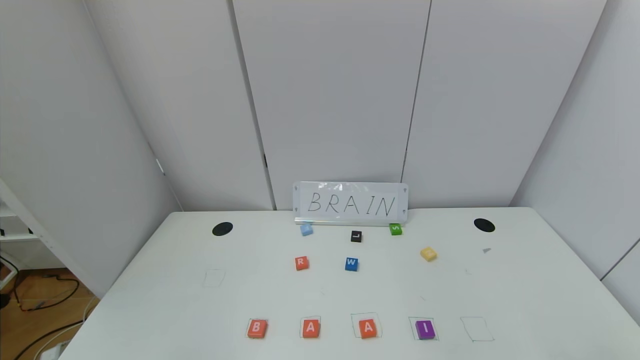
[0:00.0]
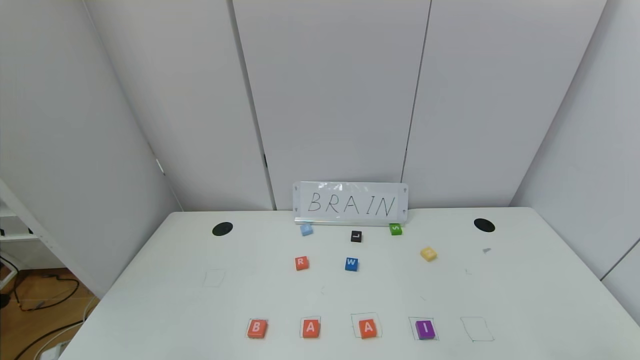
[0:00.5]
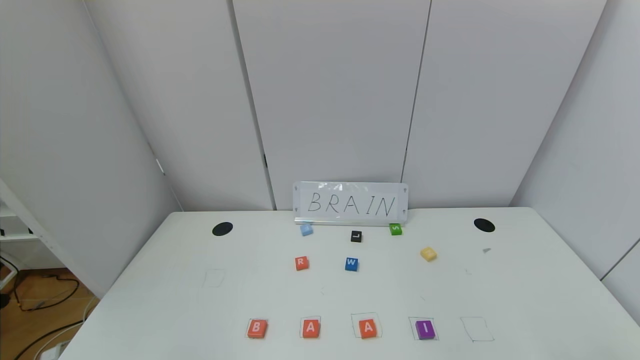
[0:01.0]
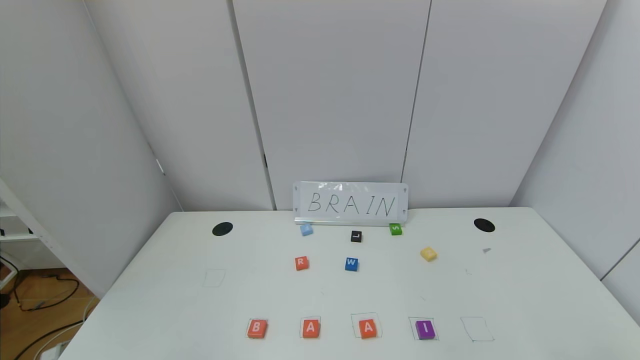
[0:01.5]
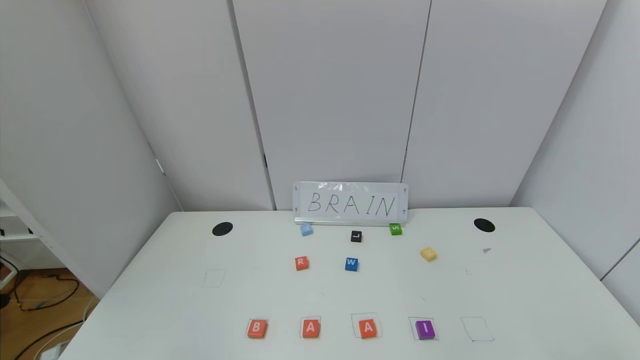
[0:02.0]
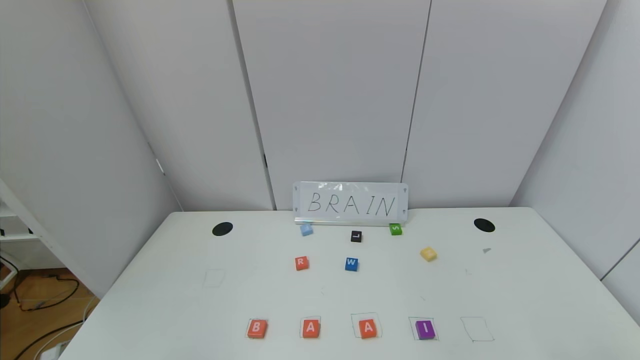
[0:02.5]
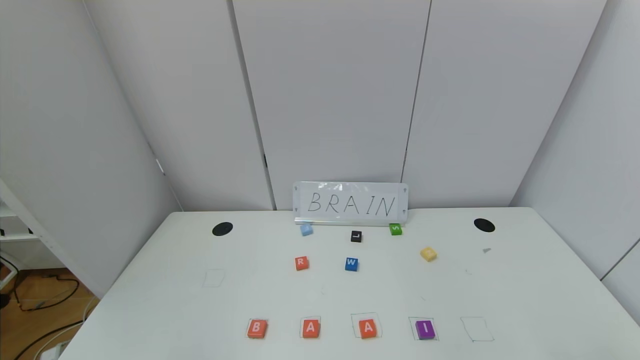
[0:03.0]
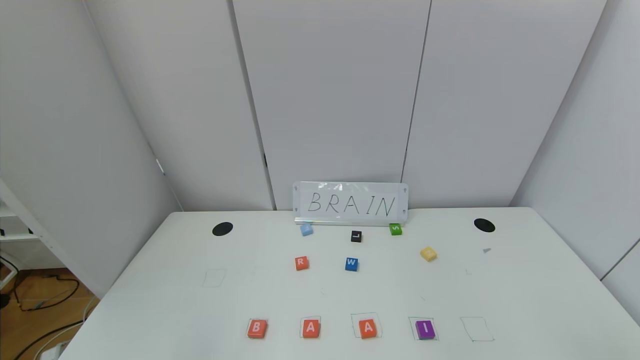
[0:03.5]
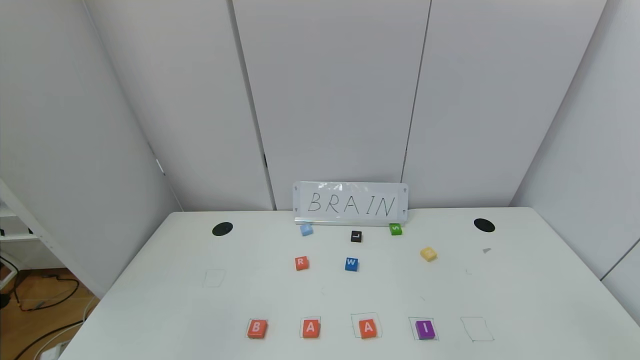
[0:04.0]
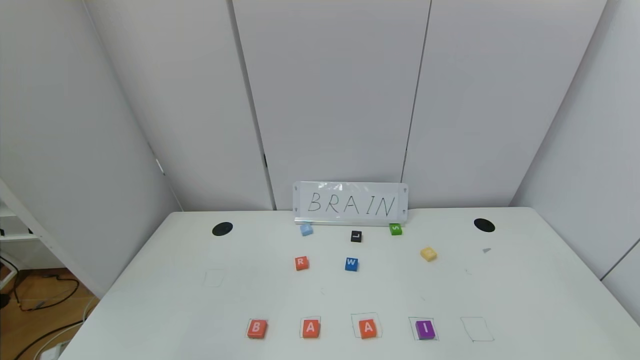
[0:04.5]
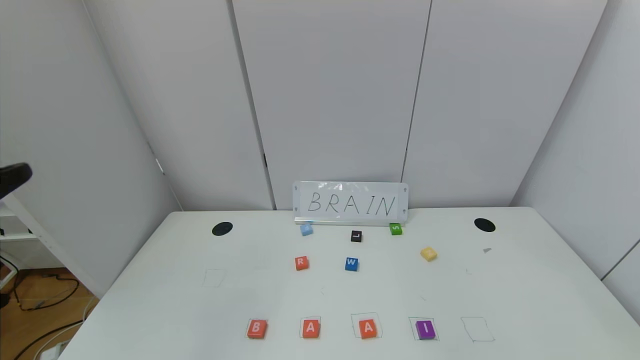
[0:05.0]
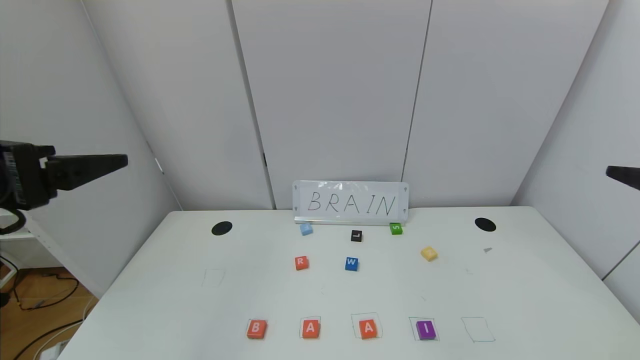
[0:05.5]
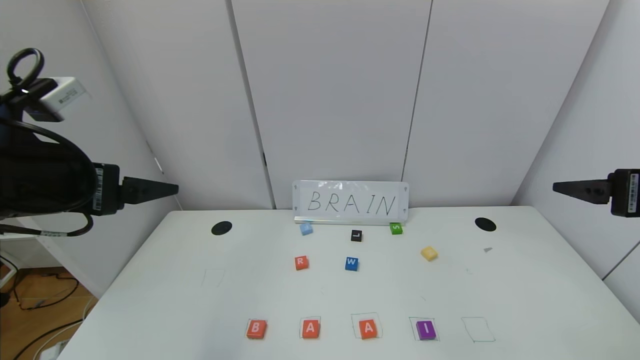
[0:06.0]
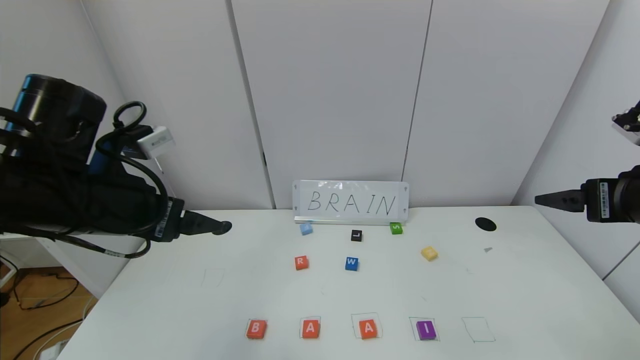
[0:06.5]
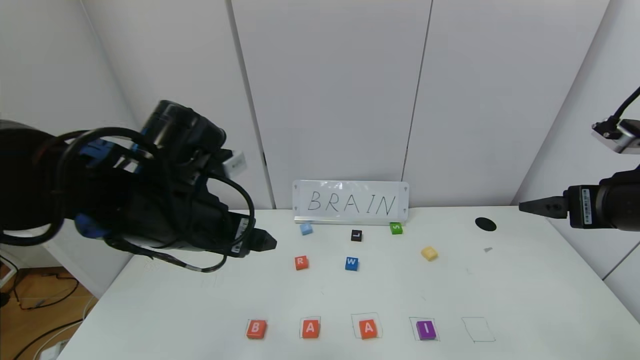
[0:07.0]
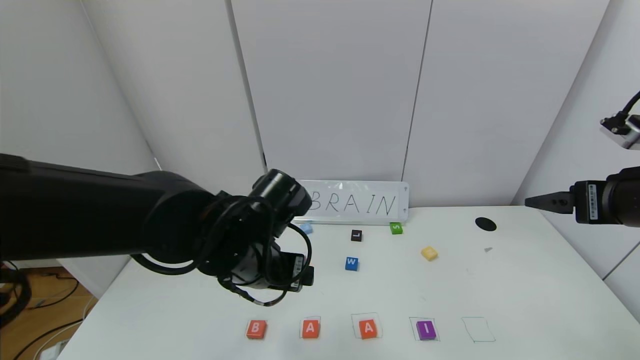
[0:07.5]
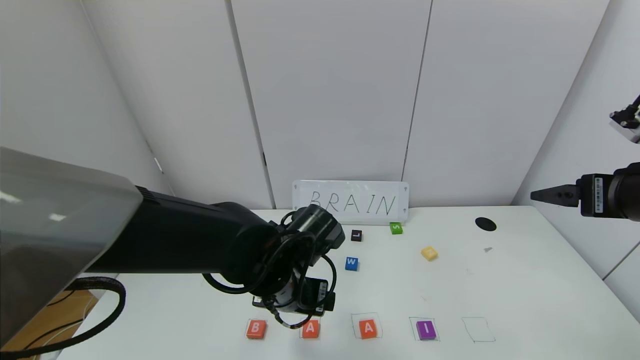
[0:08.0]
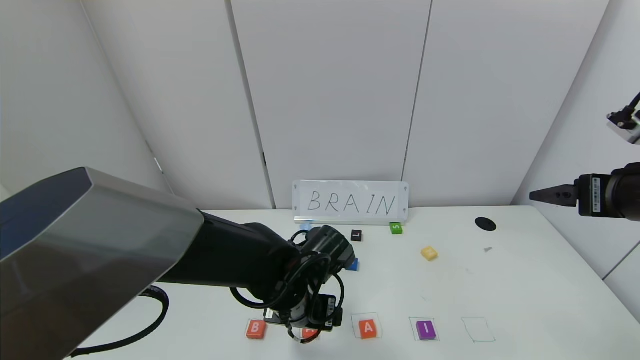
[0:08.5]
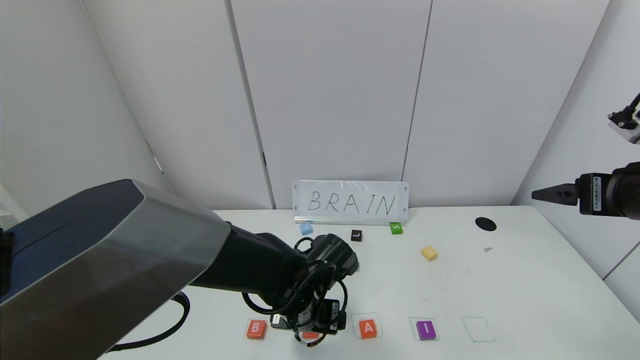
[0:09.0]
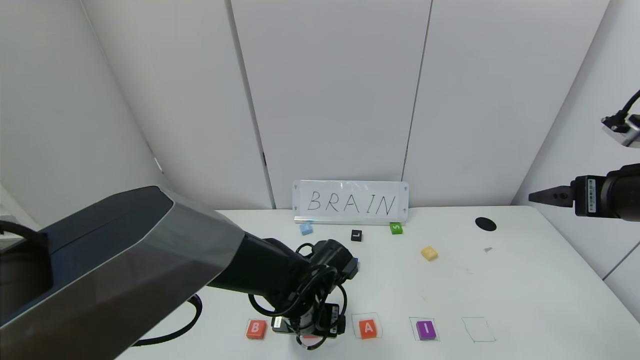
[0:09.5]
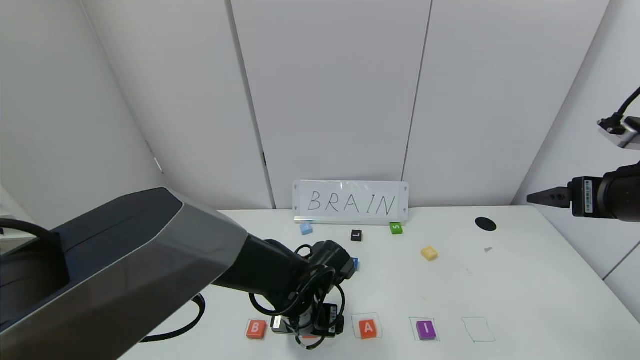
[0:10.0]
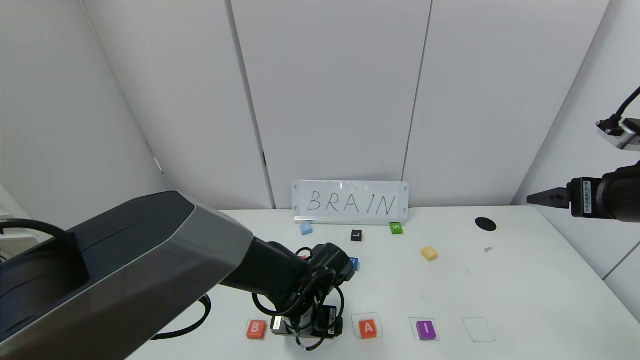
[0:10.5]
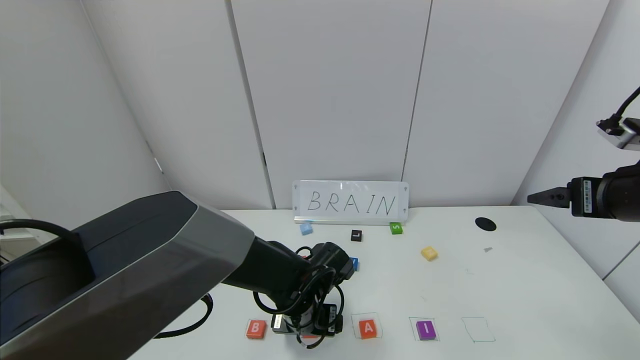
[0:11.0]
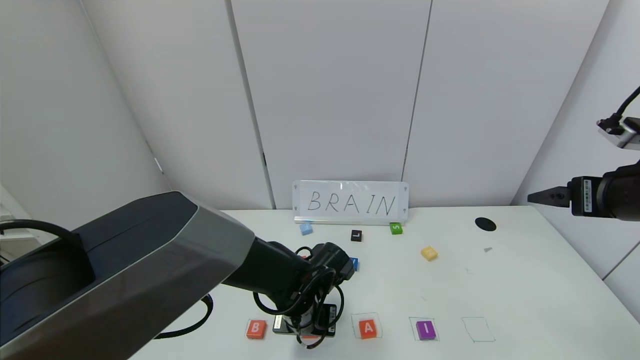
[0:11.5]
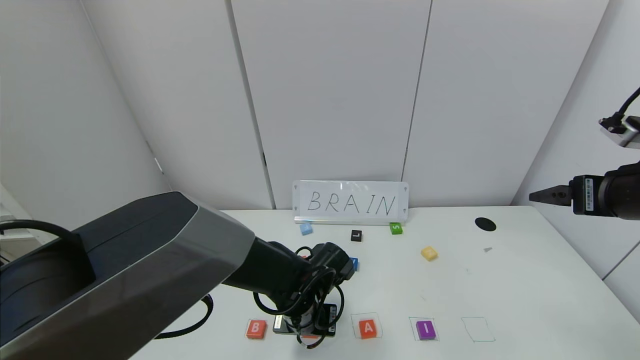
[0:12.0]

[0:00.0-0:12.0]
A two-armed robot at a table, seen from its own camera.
Task of the whole recording: use the gripper to find blocks with the letters b, a, a, and i on the table and arrange them into BAAI, then find r and N and turn the arranged baai into brian.
0:00.0 to 0:02.0: Both grippers stay about where they are.
0:04.0 to 0:06.0: The left gripper goes about 25 cm forward and upward. Meanwhile the right gripper shifts about 25 cm forward.
0:06.0 to 0:08.0: The left gripper travels to the right and downward by roughly 25 cm.
0:08.0 to 0:10.0: The left gripper moves downward, approximately 10 cm.
0:10.0 to 0:12.0: The left gripper closes its fingers.

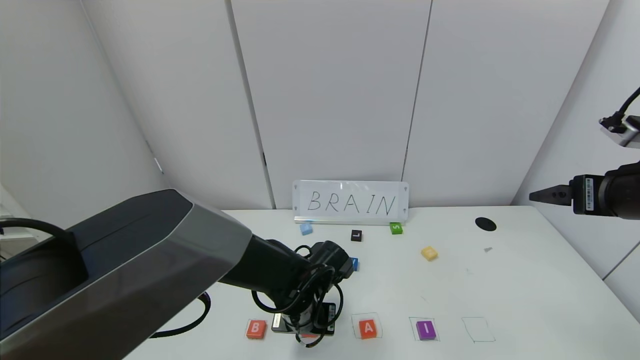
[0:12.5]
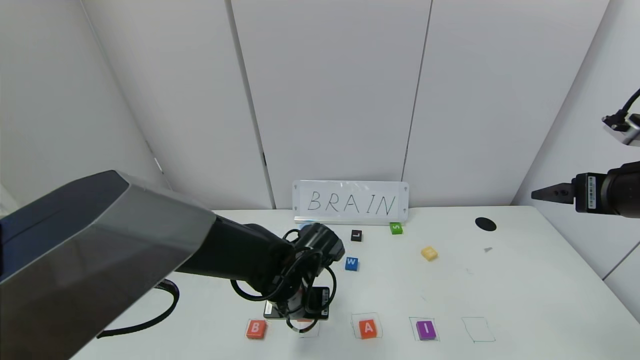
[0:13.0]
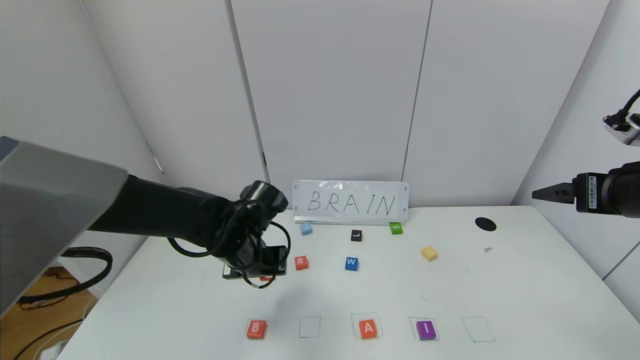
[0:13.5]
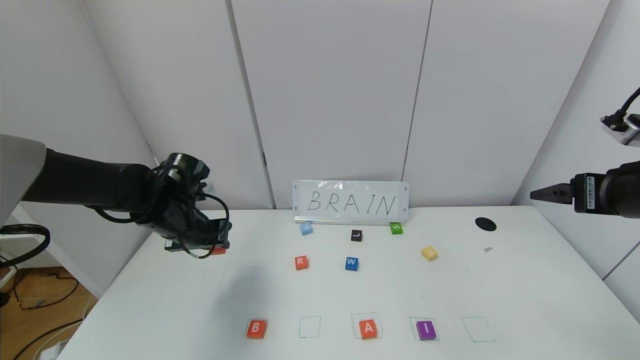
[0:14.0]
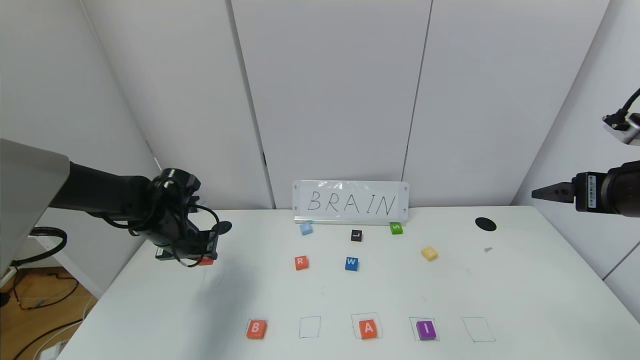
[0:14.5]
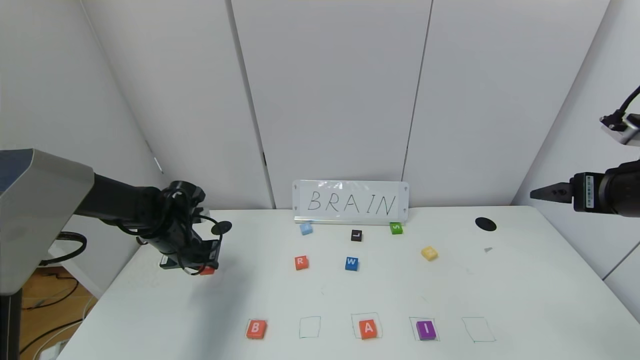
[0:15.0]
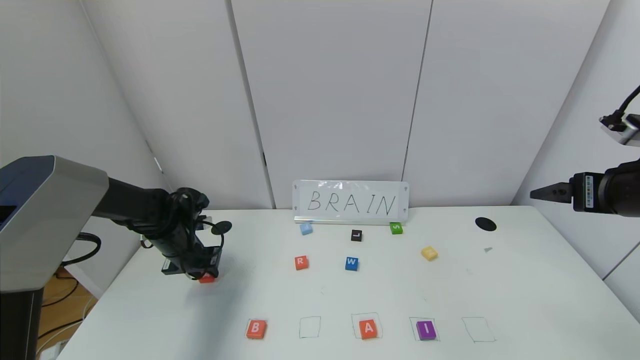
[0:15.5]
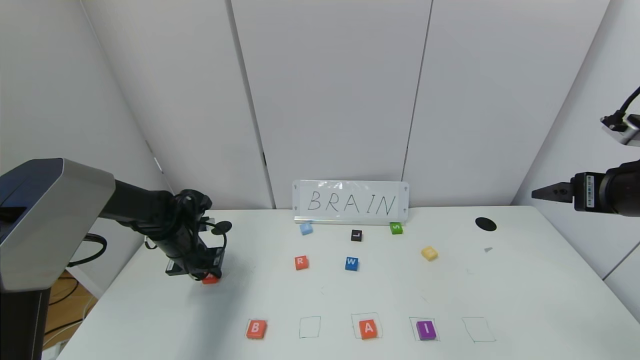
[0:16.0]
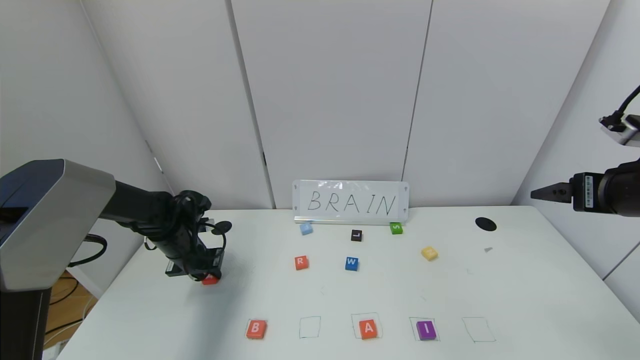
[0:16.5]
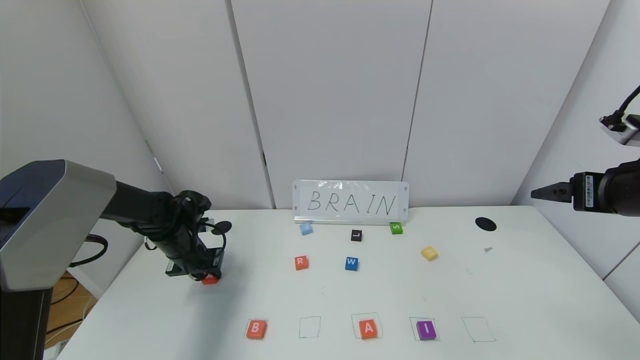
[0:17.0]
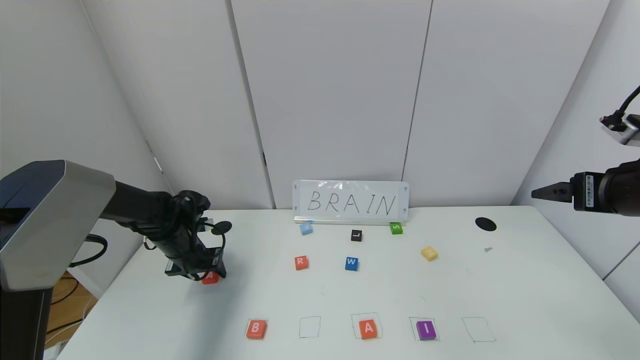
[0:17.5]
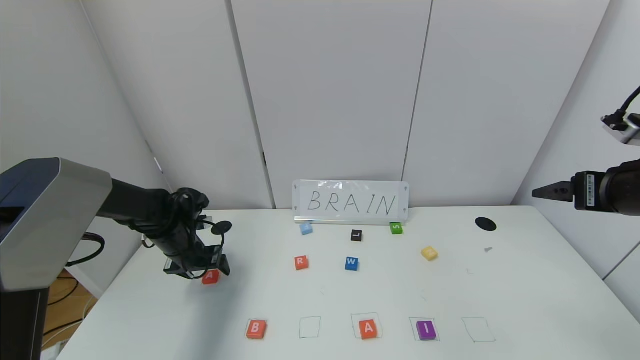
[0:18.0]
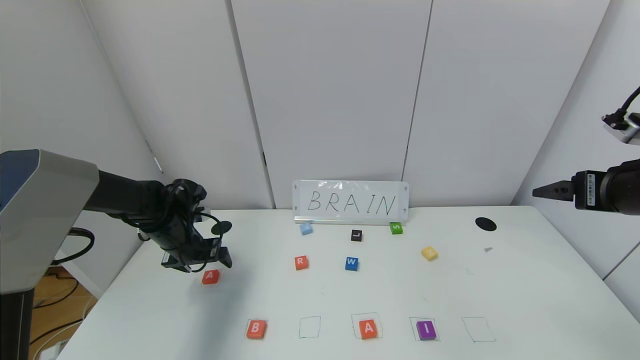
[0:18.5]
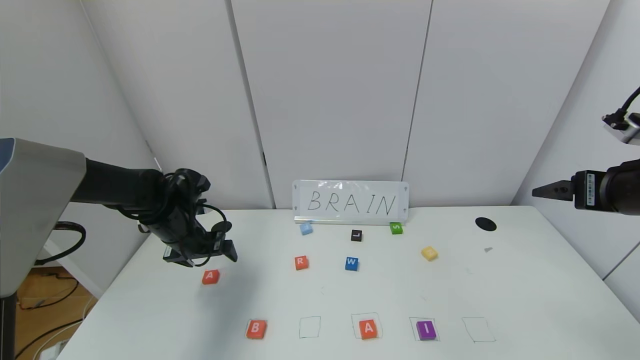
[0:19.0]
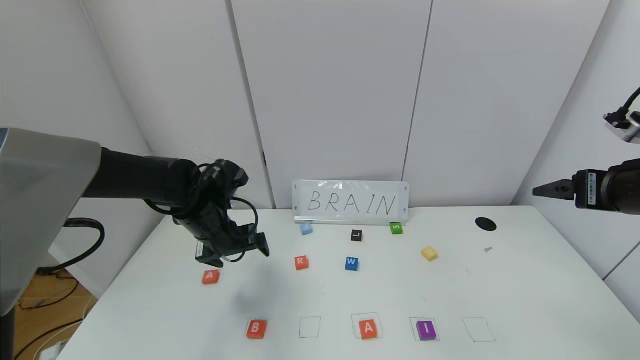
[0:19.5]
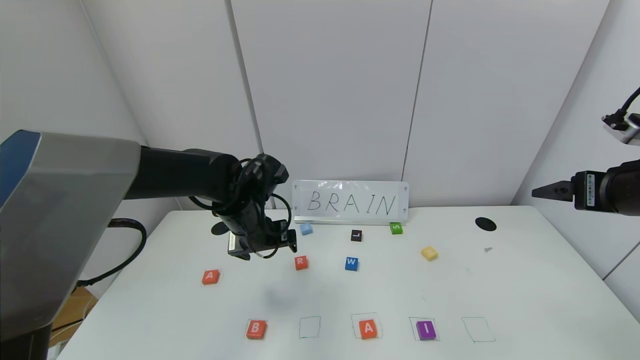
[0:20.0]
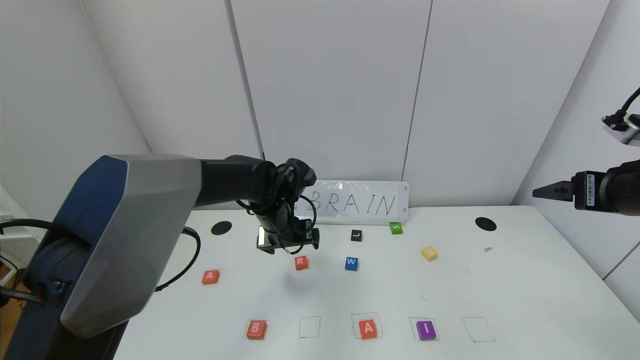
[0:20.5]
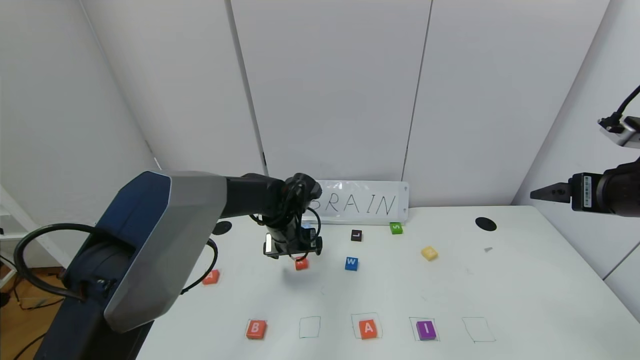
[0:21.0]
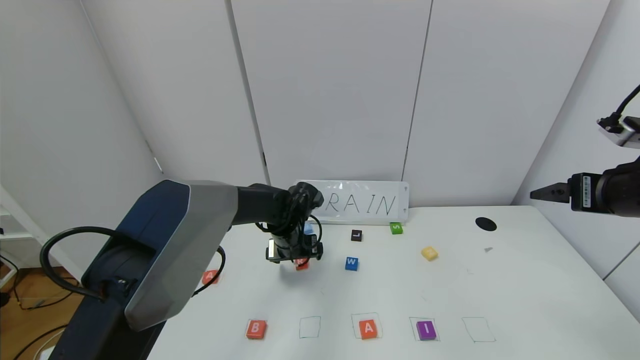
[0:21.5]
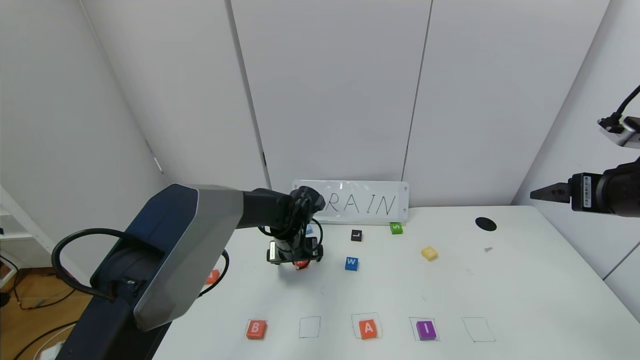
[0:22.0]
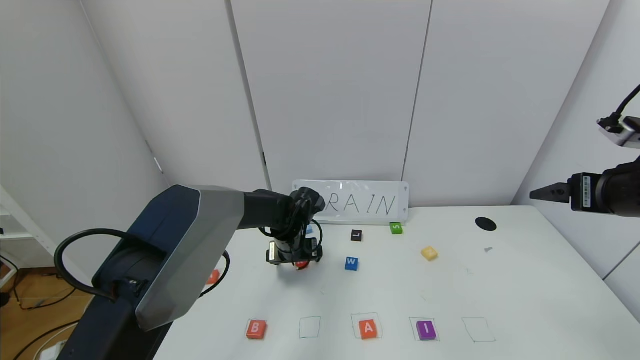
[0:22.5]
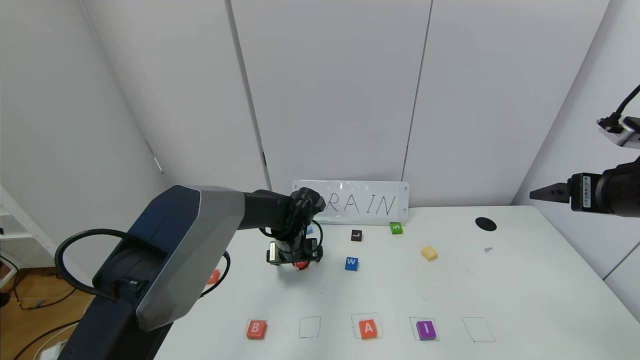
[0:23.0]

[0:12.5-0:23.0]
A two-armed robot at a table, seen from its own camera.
Task of the whole recording: use the gripper to find blocks with the letters b, a, a, and i on the table and arrange them into BAAI, then find r and N and turn the arranged baai into brian.
Step, 0:12.5 to 0:18.0: Move the block A out of the second location.
0:12.5 to 0:14.5: The left gripper moves to the left and forward, roughly 25 cm.
0:14.5 to 0:16.5: The left gripper moves downward, approximately 5 cm.
0:16.5 to 0:19.0: The left gripper is displaced upward by about 5 cm, and opens up.
0:19.0 to 0:21.0: The left gripper shifts roughly 20 cm to the right.
0:21.0 to 0:23.0: The grippers move only a little.
